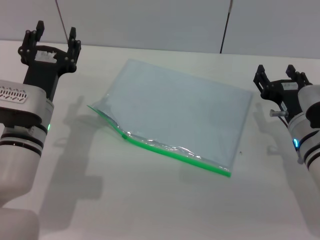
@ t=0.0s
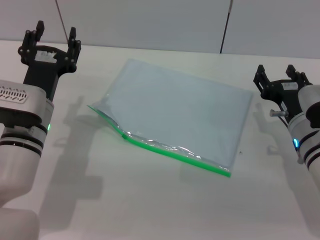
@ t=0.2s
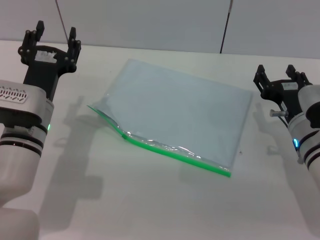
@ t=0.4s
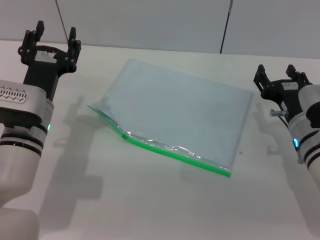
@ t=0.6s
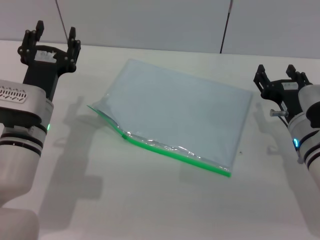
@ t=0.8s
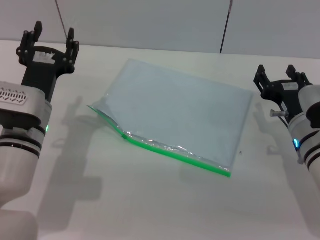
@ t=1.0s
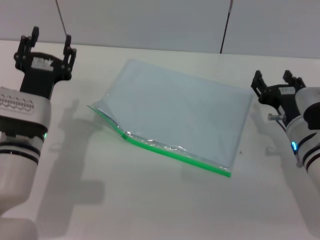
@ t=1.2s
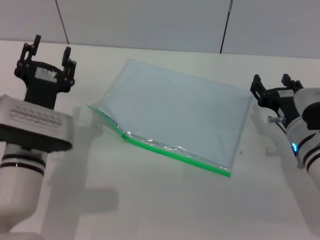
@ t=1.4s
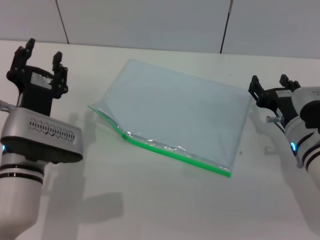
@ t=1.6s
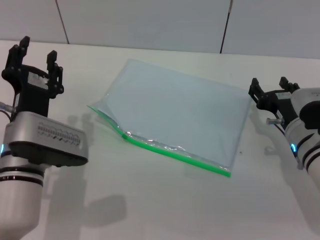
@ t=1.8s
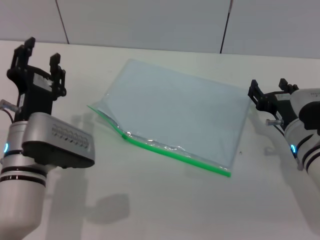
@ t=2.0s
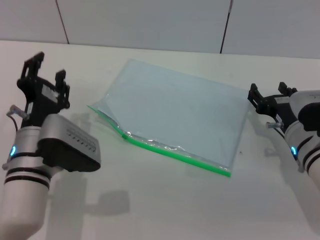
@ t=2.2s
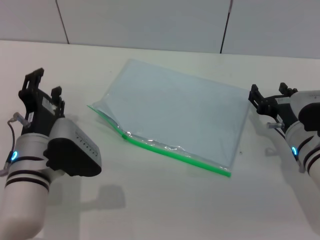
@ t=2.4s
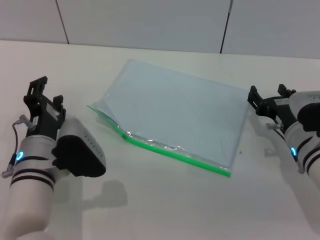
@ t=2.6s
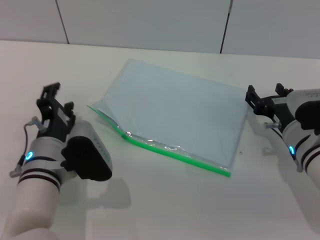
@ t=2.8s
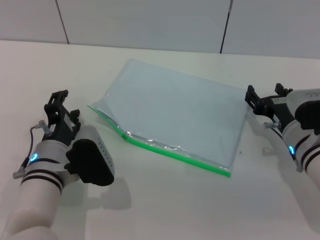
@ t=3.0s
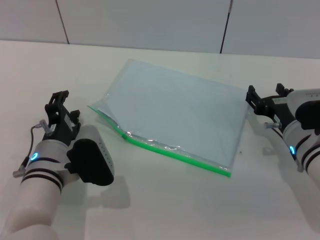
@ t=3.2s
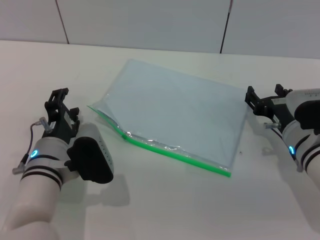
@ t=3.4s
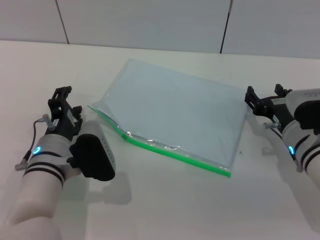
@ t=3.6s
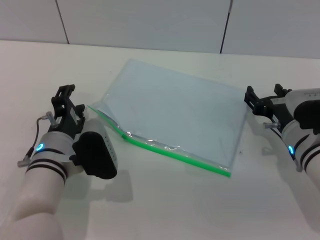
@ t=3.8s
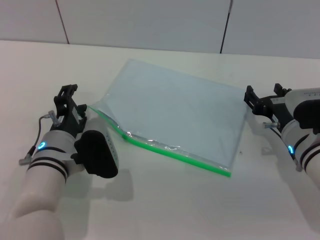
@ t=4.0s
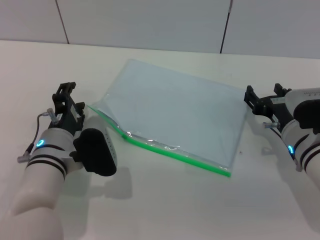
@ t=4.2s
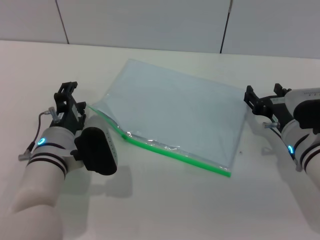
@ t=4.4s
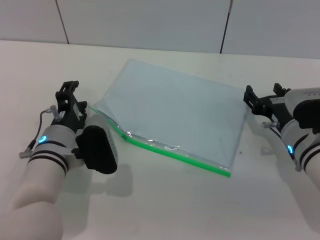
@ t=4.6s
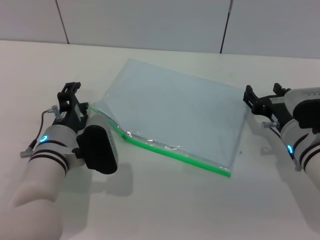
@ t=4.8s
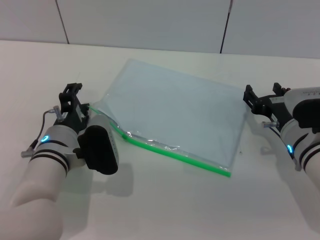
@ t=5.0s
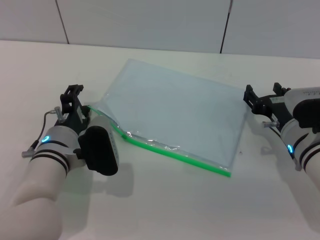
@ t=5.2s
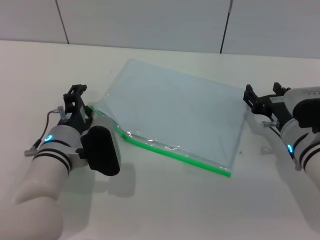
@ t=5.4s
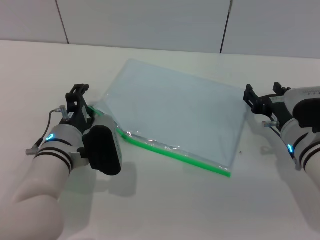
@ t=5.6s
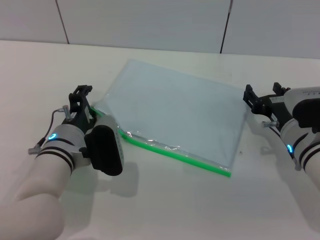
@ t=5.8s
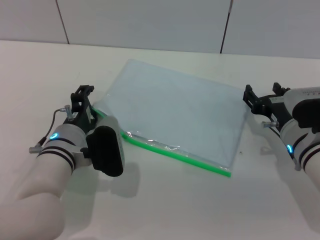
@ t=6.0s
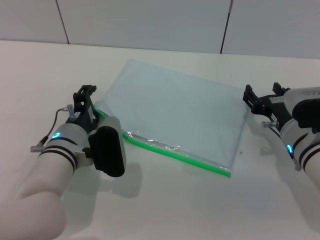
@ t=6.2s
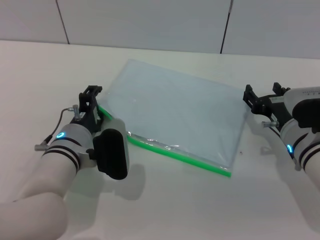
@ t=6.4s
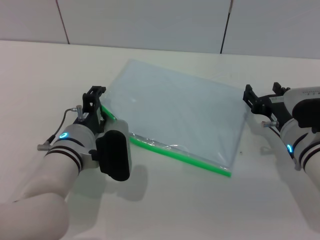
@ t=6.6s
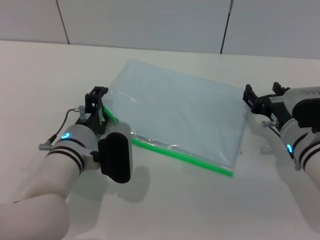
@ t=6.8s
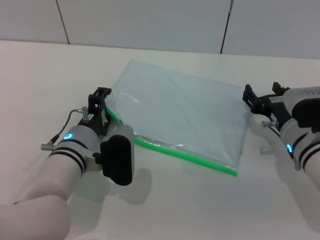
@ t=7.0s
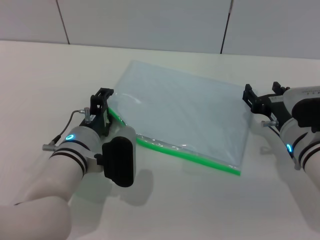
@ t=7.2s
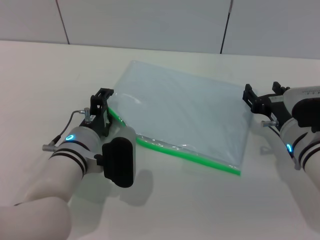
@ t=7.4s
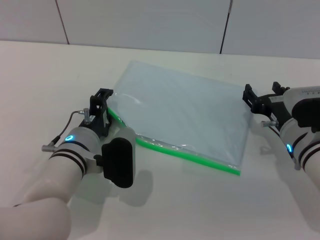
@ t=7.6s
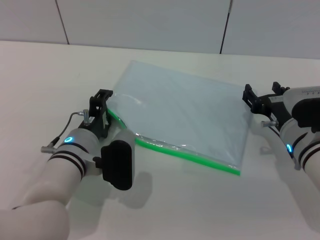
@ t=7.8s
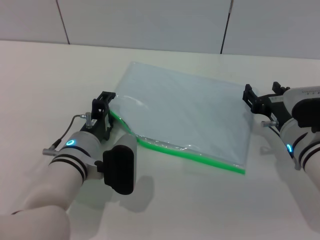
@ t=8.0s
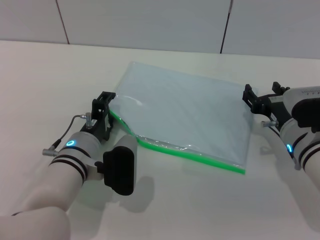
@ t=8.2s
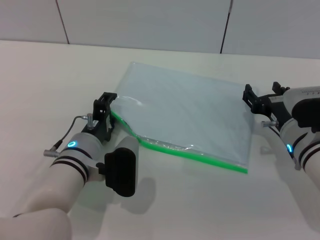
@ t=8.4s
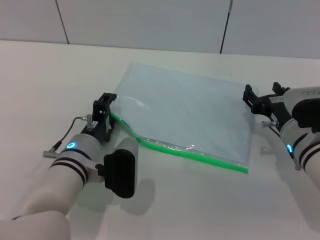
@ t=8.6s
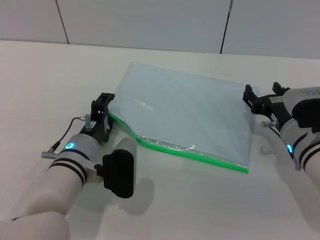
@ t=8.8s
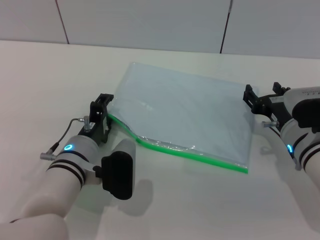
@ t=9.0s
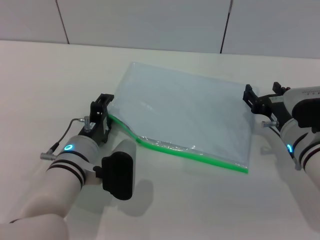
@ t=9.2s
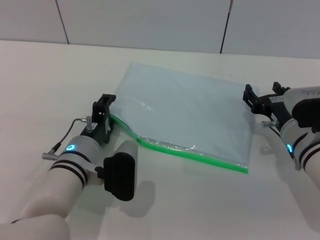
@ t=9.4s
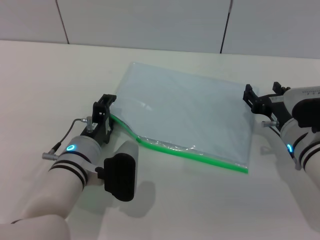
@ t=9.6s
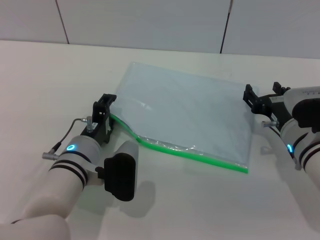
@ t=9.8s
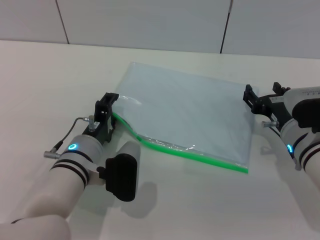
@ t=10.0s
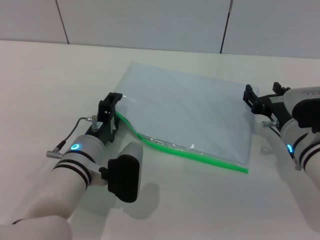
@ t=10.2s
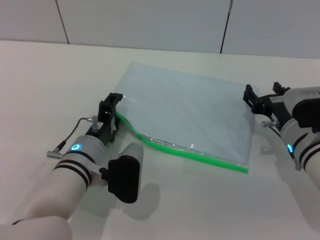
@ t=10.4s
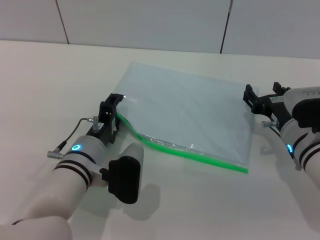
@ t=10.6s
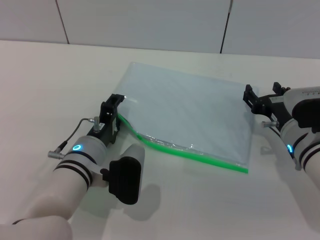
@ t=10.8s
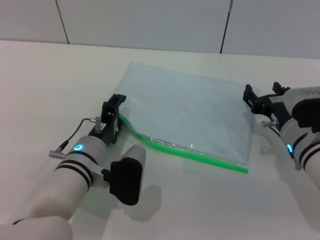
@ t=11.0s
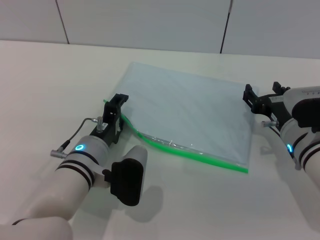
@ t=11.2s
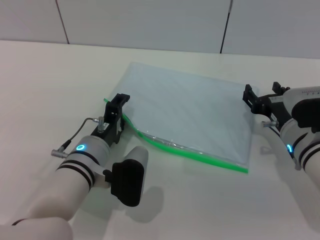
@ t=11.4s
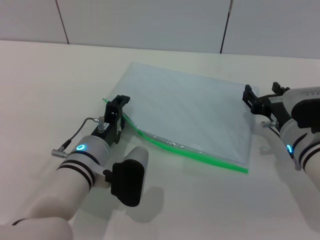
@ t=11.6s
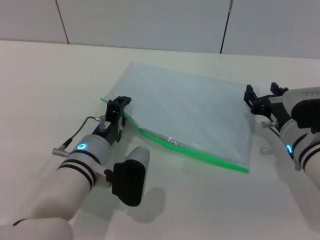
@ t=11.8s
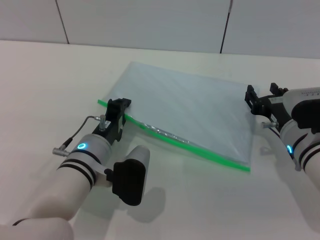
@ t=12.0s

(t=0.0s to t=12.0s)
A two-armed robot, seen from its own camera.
t=3.0s - t=6.0s: The grippers make only small movements.
t=6.0s - t=9.0s: The grippers move only a little.
t=9.0s - t=10.4s: Neither gripper changes place.
t=10.4s - t=12.0s: Neither gripper changes place.

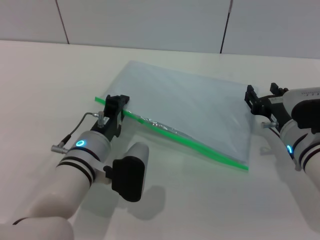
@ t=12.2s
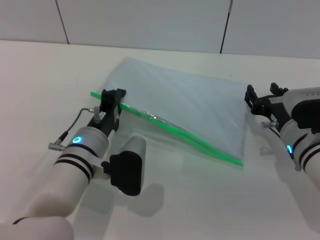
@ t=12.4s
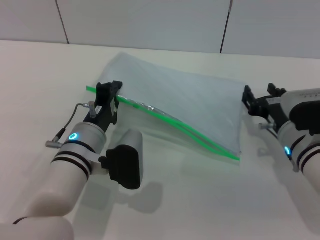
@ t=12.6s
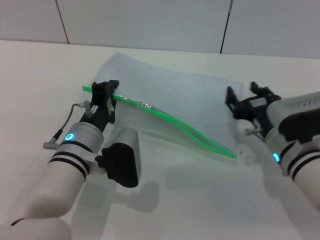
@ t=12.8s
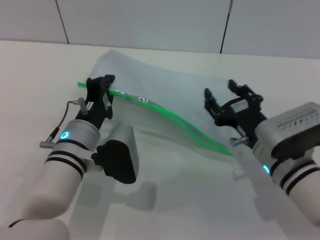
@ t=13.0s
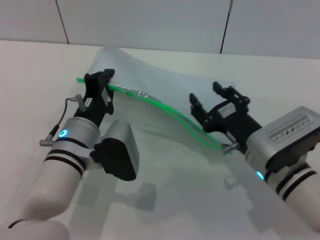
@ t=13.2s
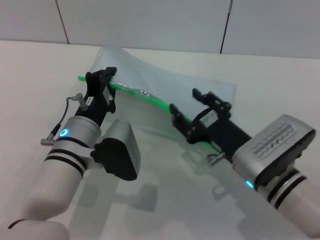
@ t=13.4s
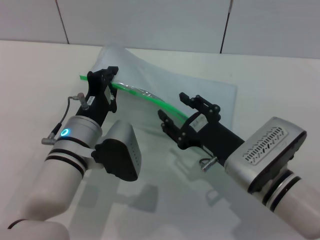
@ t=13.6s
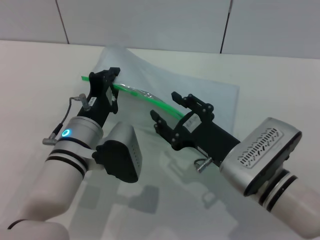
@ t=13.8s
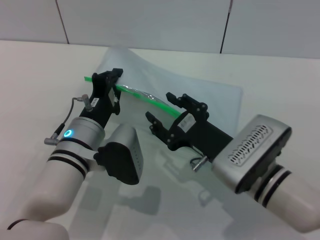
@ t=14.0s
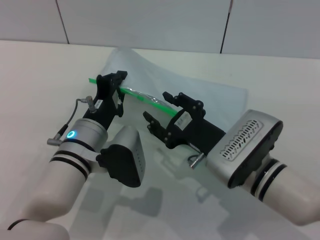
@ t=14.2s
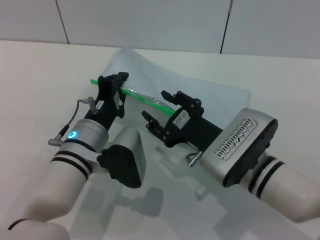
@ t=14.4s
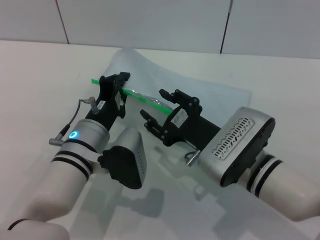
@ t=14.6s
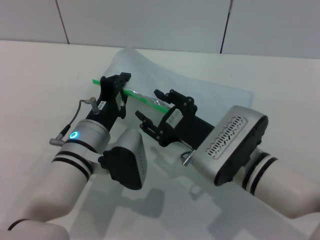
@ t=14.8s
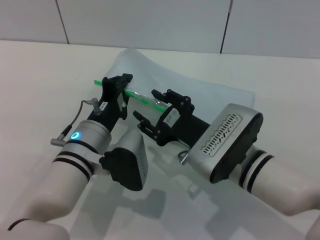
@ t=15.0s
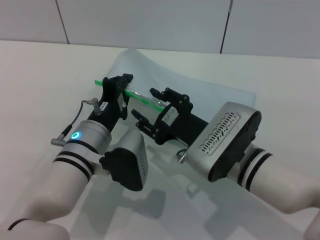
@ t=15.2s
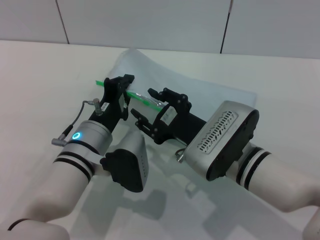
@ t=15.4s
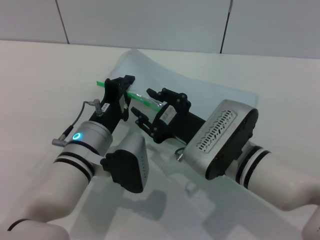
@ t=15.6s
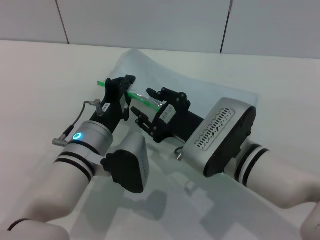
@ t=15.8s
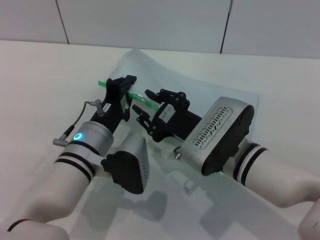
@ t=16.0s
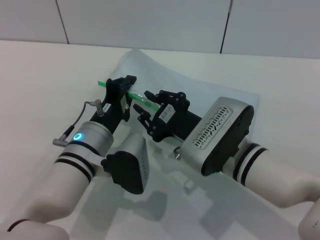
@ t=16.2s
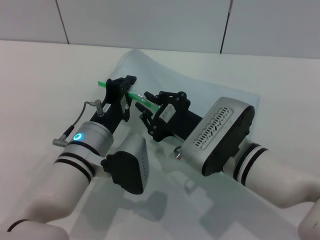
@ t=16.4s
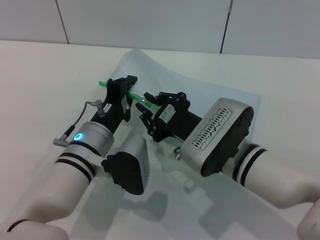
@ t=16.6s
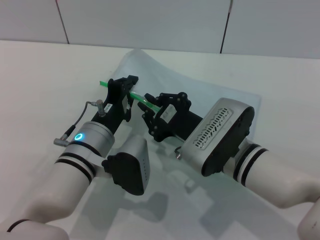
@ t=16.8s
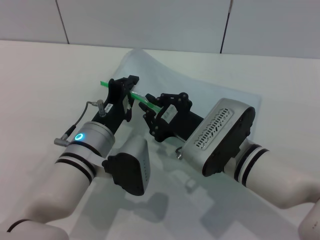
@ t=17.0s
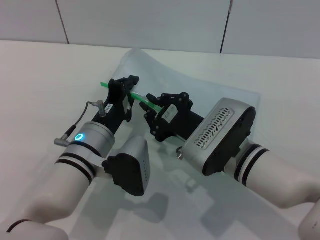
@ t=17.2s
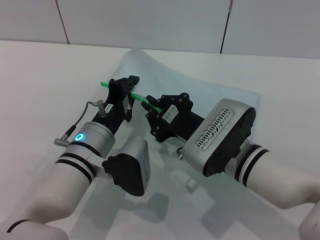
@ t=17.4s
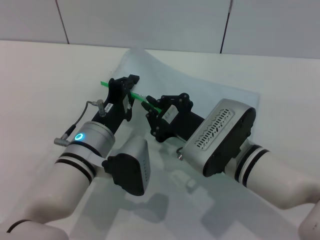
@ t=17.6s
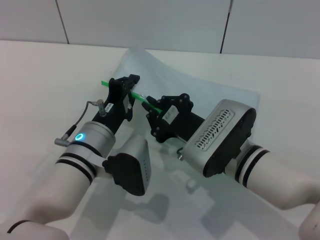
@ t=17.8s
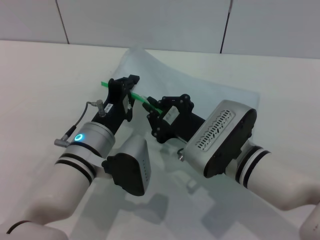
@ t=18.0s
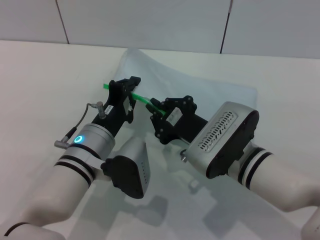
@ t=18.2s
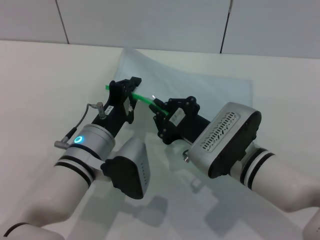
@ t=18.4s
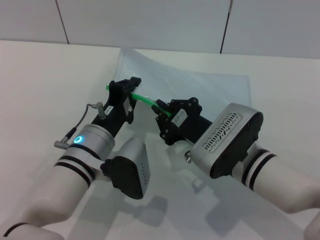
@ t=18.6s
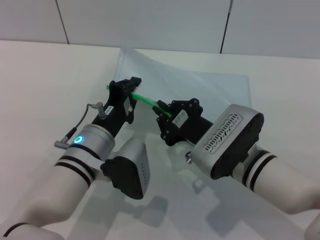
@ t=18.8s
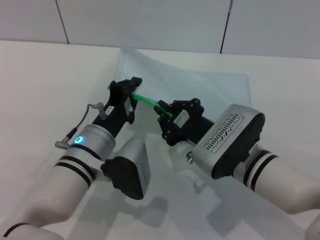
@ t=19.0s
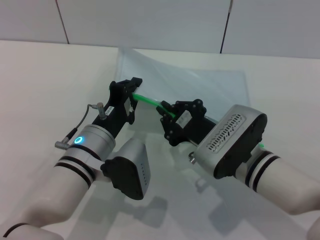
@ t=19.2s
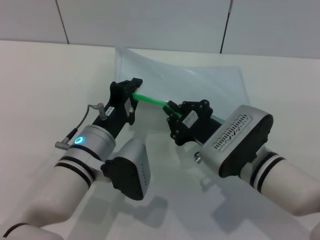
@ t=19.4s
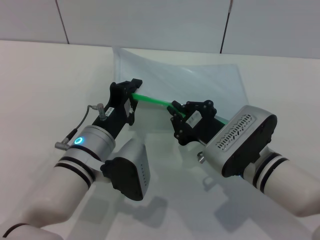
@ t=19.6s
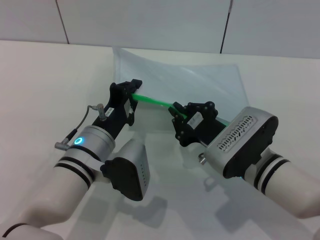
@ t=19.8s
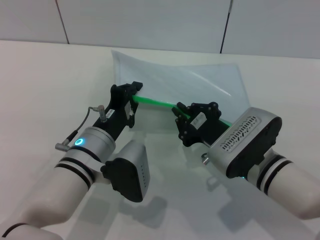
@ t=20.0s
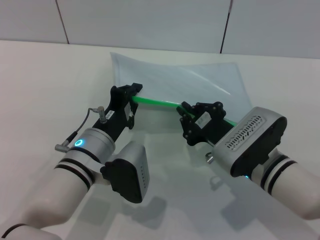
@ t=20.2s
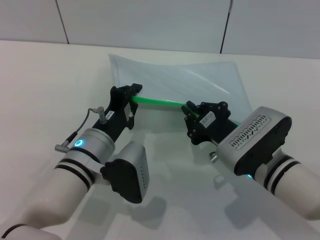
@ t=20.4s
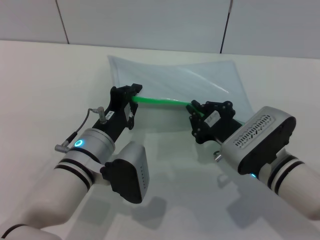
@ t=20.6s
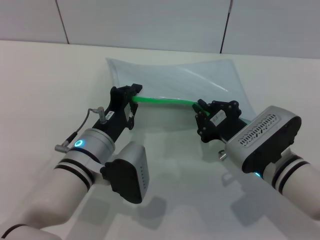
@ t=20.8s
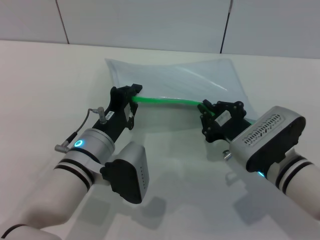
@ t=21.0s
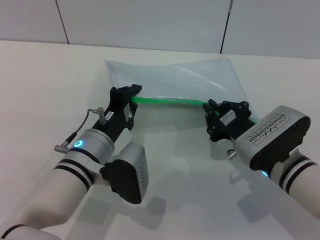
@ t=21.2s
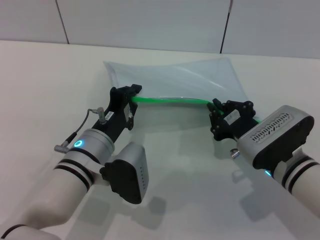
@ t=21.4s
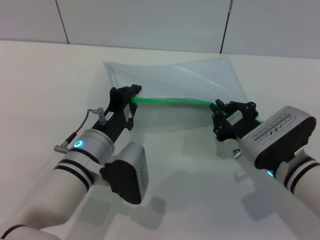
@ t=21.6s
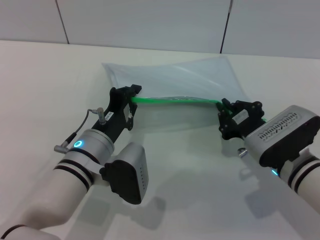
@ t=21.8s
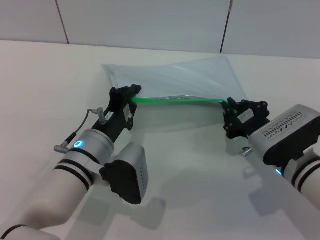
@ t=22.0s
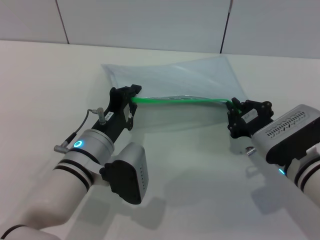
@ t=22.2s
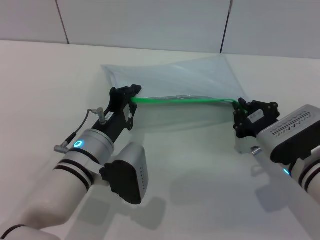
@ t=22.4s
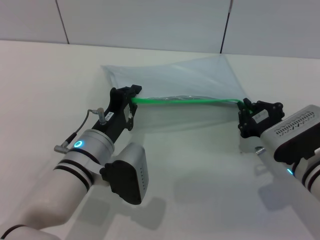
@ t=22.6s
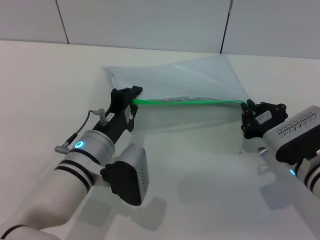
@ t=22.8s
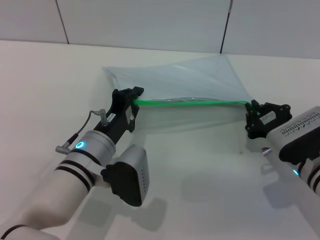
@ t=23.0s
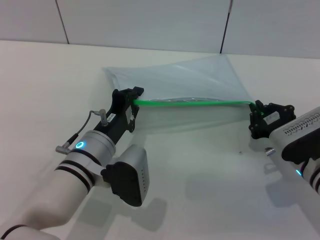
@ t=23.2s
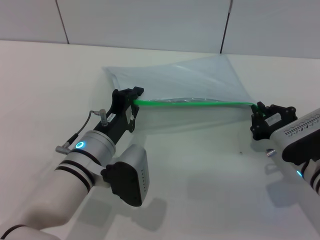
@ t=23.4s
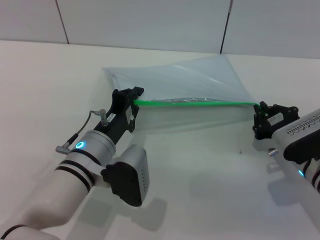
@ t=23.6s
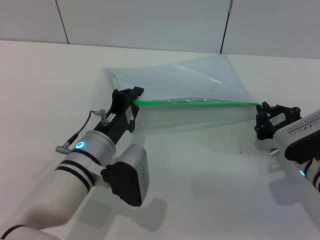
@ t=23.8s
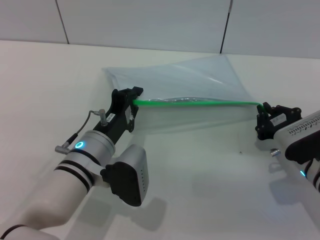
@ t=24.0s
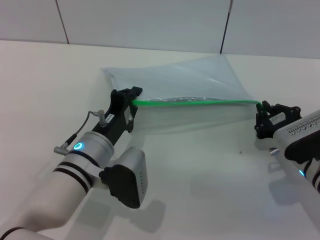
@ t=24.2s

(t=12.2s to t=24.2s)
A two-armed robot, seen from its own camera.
t=12.2s - t=13.8s: The right gripper goes roughly 10 cm to the left and backward.
t=15.2s - t=16.6s: The right gripper closes up.
t=16.6s - t=18.2s: The two grippers keep their place.
t=18.2s - t=19.8s: The grippers stay close to where they were, moving slightly.
t=19.8s - t=21.2s: The grippers move only a little.
t=21.2s - t=22.6s: There are only small adjustments of the grippers.
t=22.6s - t=24.2s: The grippers move only a little.
